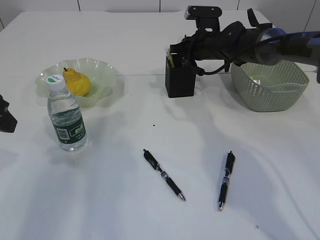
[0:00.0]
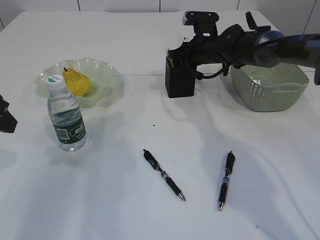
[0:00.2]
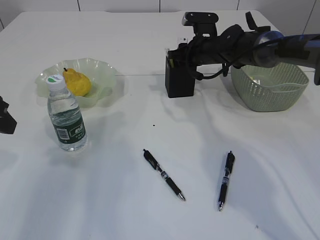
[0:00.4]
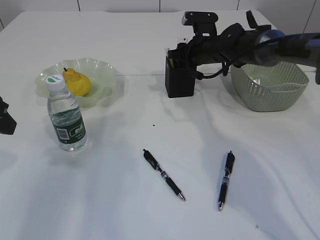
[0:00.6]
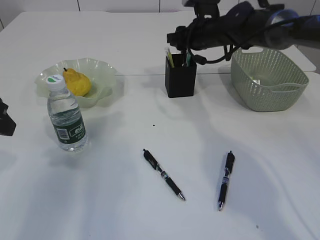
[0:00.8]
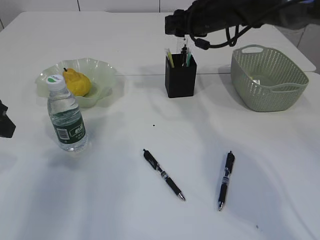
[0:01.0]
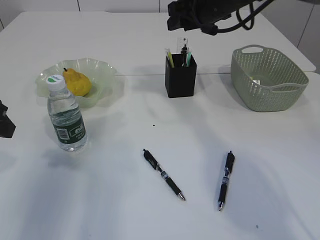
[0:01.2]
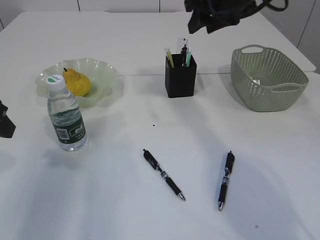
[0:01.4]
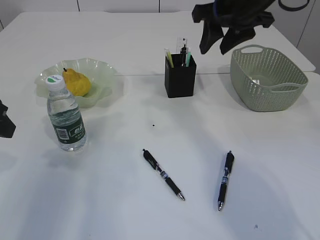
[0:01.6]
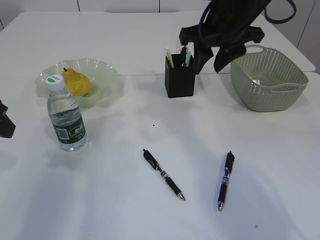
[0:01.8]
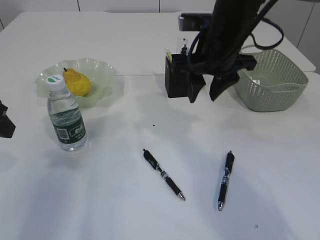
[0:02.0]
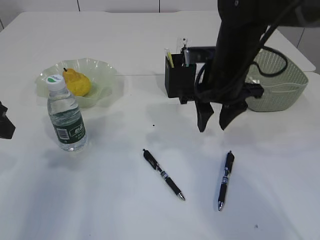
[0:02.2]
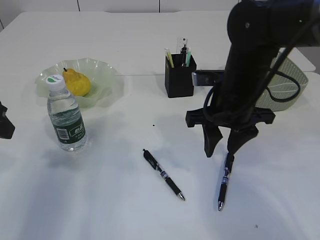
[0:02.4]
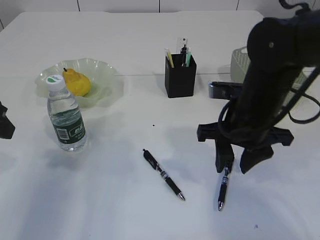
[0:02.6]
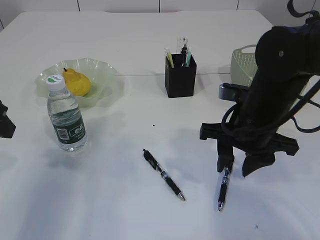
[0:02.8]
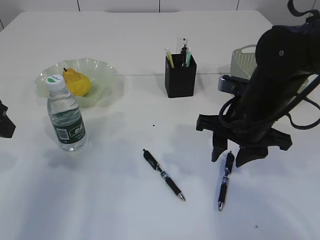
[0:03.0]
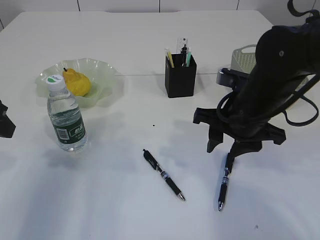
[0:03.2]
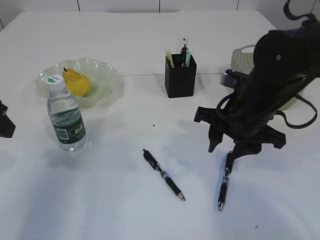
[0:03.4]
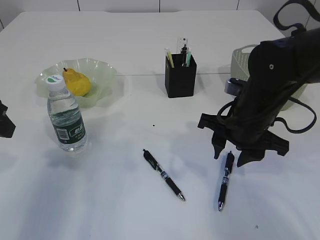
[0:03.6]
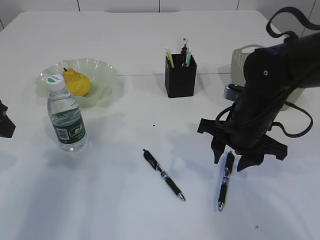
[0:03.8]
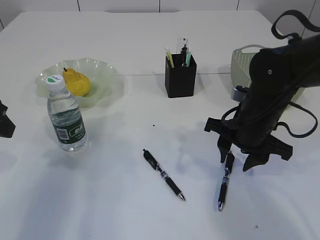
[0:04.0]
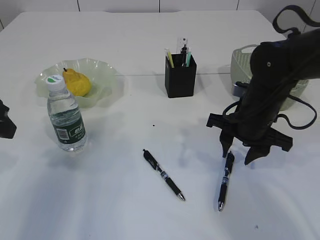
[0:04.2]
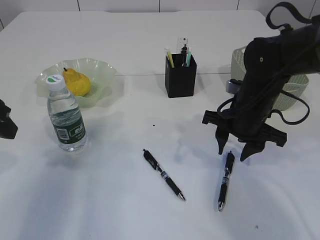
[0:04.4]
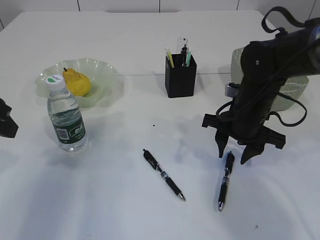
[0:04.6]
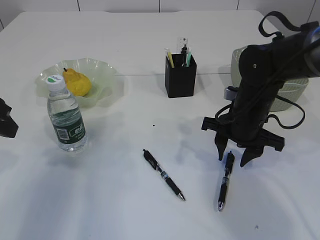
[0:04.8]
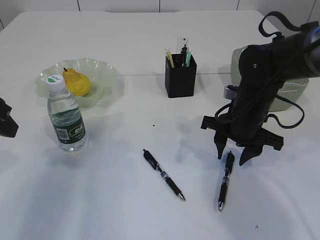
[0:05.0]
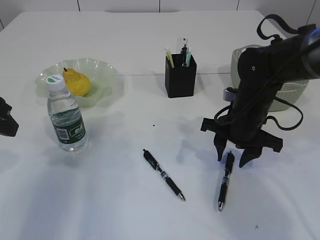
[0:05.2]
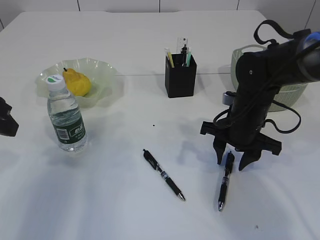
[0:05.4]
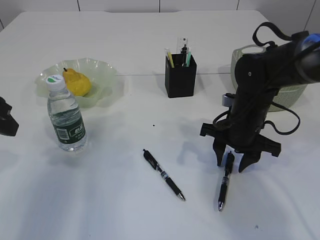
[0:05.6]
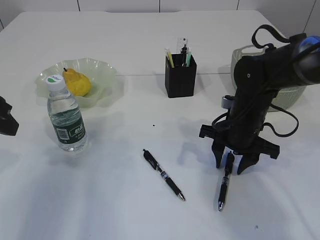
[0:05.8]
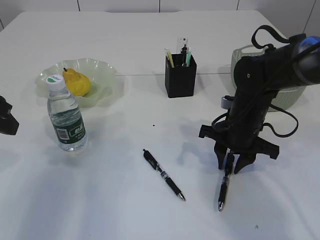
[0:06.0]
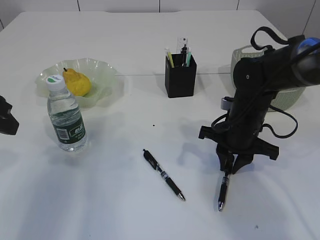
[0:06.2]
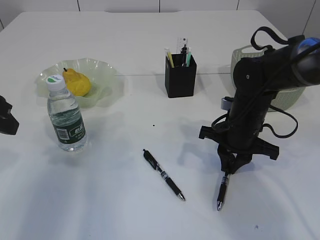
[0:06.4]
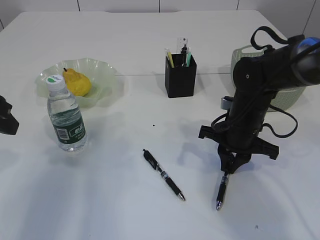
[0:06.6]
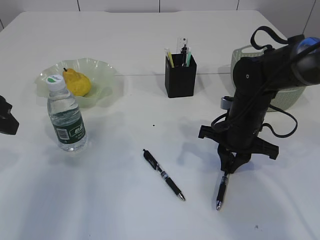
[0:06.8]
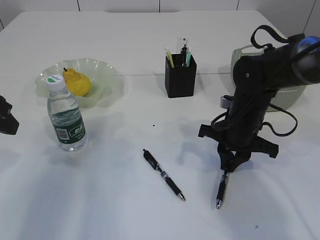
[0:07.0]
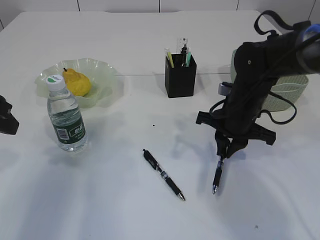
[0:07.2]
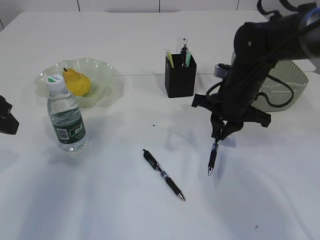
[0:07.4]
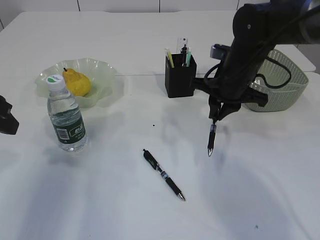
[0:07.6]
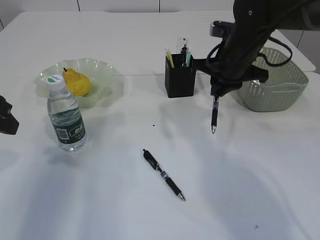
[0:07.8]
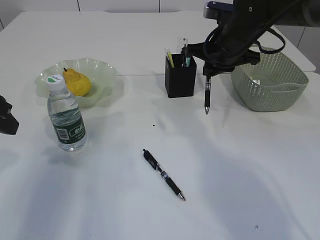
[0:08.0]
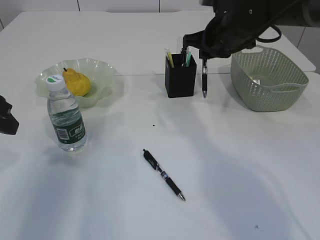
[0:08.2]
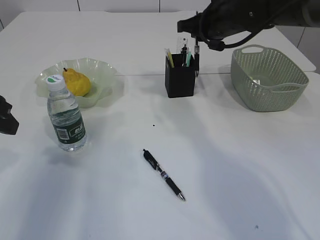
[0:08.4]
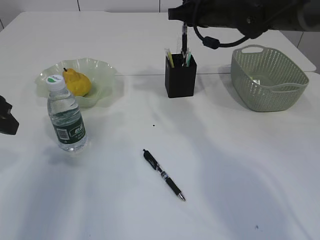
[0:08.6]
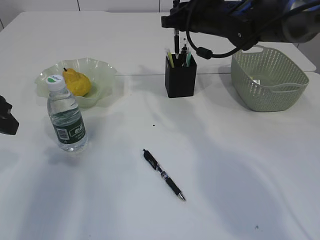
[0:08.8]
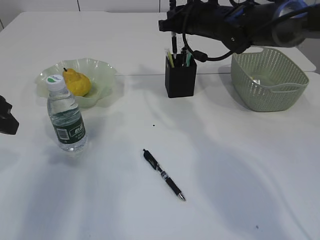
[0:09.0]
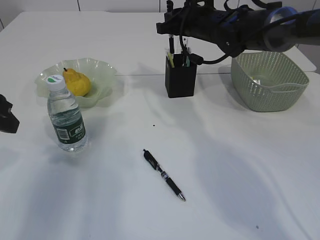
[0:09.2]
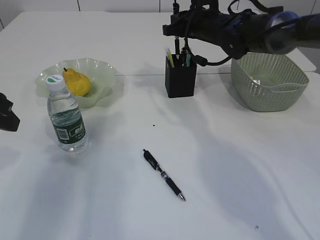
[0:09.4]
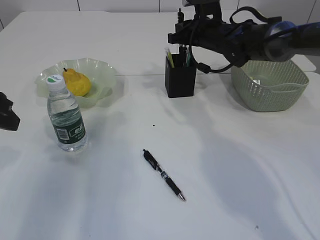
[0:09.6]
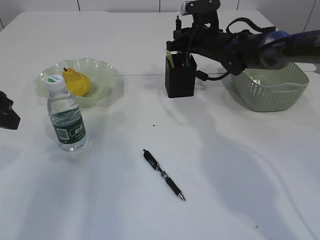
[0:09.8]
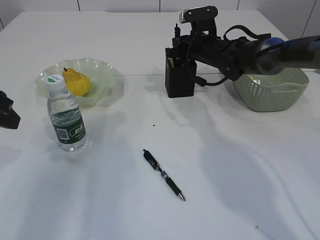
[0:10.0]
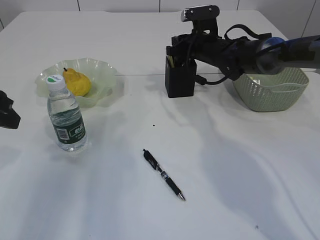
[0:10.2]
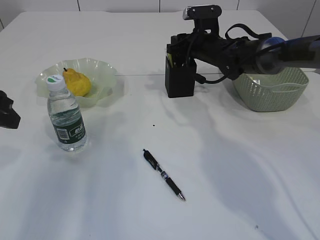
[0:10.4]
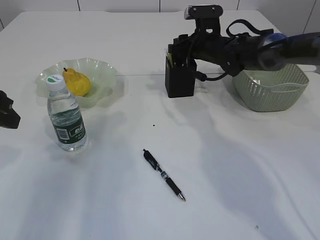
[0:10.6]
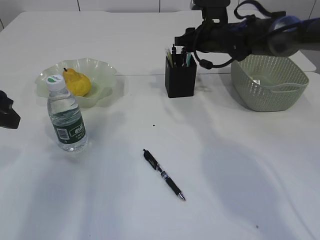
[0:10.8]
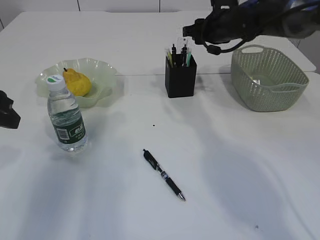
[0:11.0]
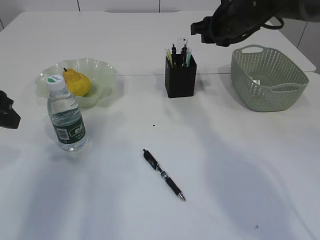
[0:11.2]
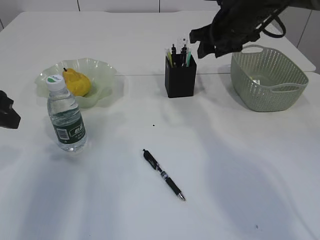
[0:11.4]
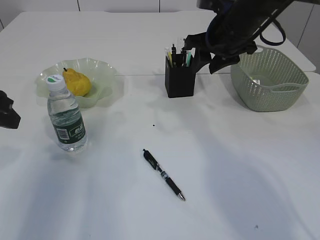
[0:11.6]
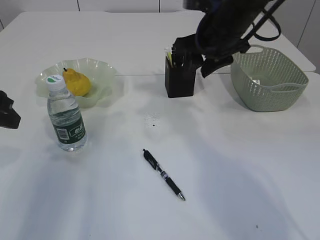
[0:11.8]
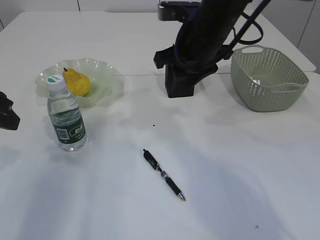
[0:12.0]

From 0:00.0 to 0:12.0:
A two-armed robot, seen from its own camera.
Step, from 0:01.2 to 0:07.2: Pick up the pen with right arm.
Step, from 0:07.4 to 0:10.8: Place the pen into the pen holder.
From 0:00.0 to 0:01.6: The right gripper goes roughly 20 cm upward and backward, and opens.
From 0:01.6 to 0:03.0: The right gripper is displaced downward and backward by some 15 cm.
From 0:03.0 to 0:04.4: The right gripper ends up roughly 5 cm from where it was.
From 0:04.4 to 0:06.0: There are only small adjustments of the grippers.
From 0:06.0 to 0:07.6: The right gripper travels upward by approximately 10 cm.
From 0:07.6 to 0:09.0: The right gripper moves forward and upward, some 10 cm.
From 0:09.0 to 0:10.4: The right gripper heads downward, covering about 5 cm, and opens.
From 0:10.4 to 0:12.0: The right gripper shifts approximately 15 cm backward and upward.

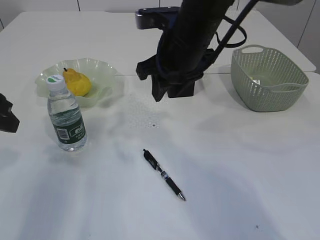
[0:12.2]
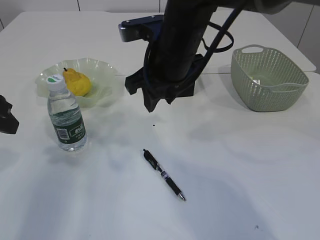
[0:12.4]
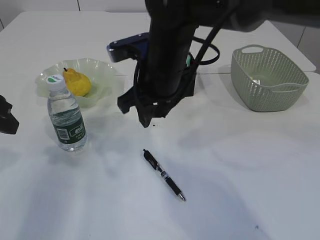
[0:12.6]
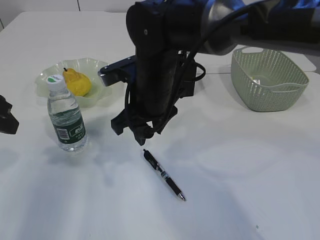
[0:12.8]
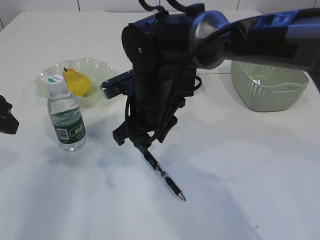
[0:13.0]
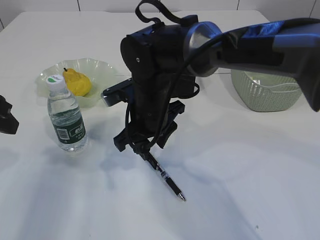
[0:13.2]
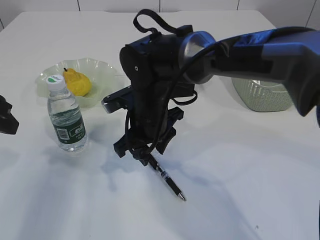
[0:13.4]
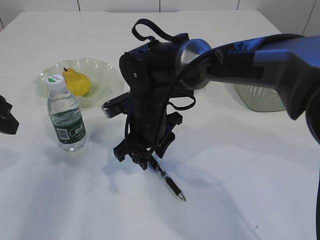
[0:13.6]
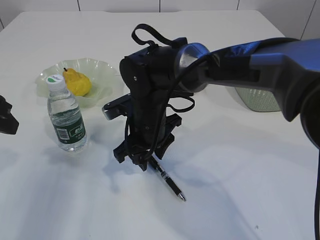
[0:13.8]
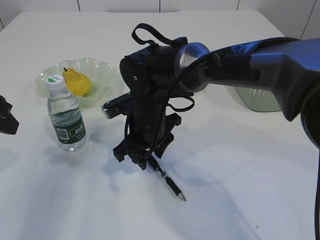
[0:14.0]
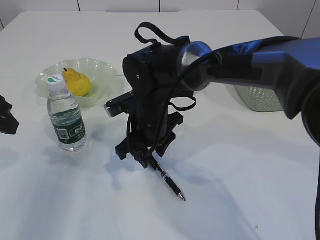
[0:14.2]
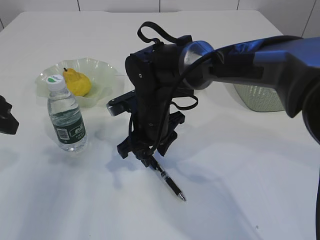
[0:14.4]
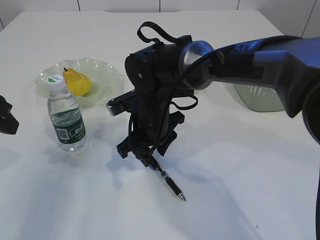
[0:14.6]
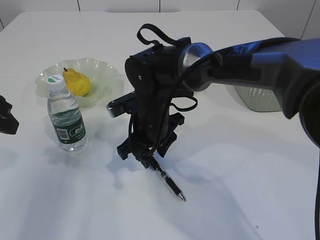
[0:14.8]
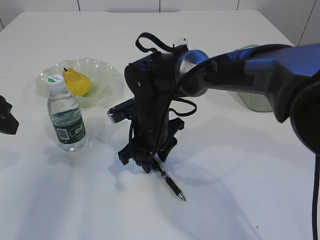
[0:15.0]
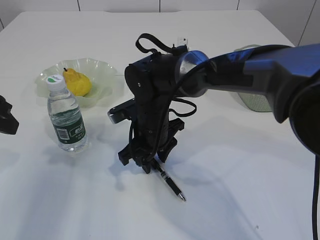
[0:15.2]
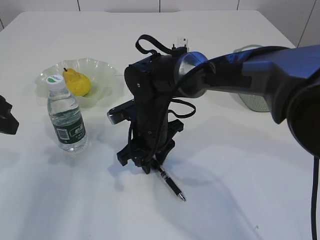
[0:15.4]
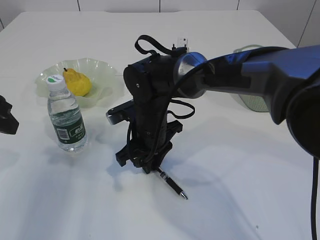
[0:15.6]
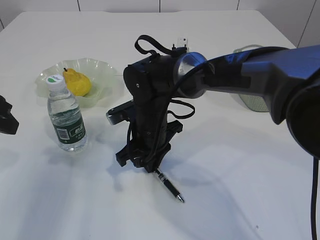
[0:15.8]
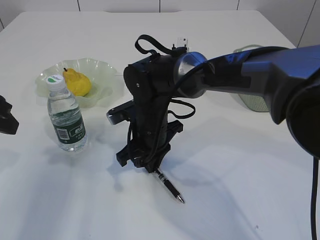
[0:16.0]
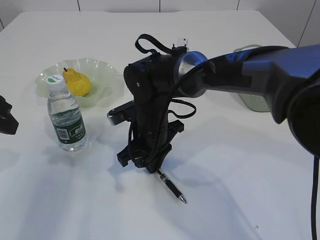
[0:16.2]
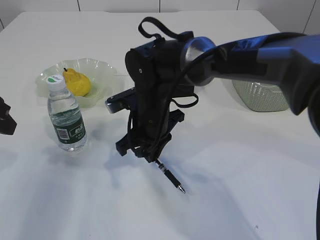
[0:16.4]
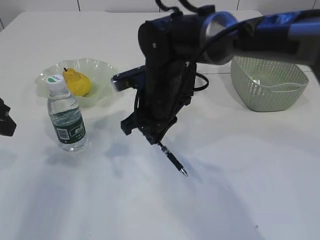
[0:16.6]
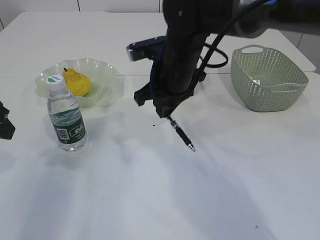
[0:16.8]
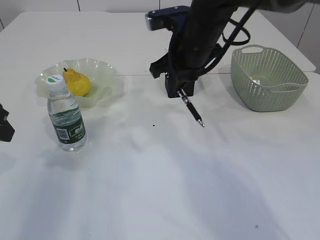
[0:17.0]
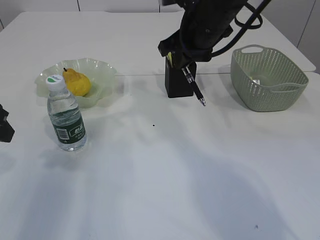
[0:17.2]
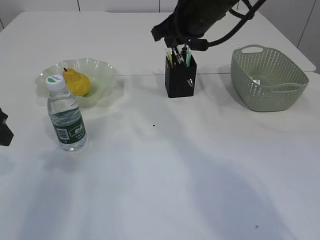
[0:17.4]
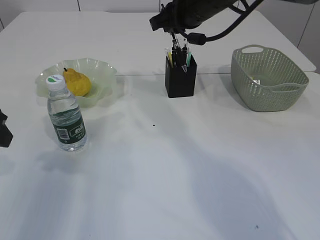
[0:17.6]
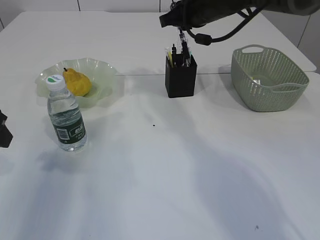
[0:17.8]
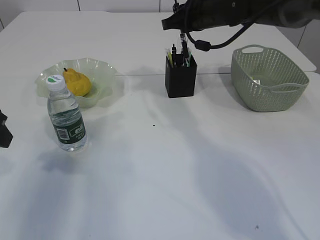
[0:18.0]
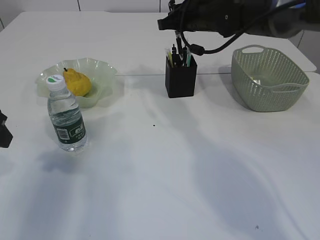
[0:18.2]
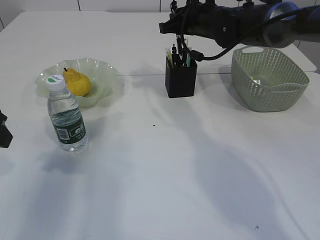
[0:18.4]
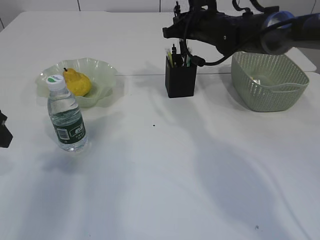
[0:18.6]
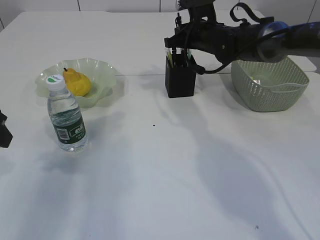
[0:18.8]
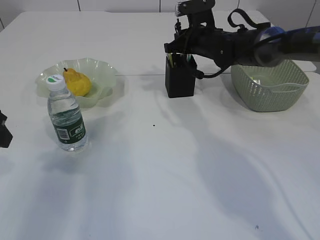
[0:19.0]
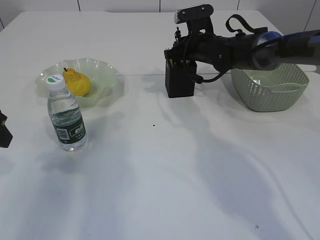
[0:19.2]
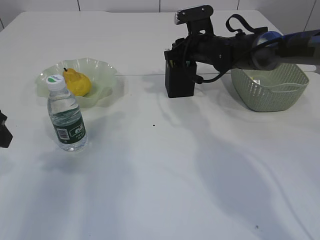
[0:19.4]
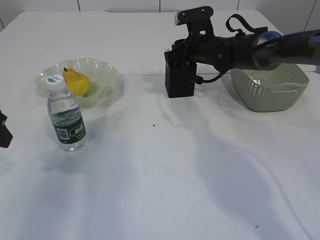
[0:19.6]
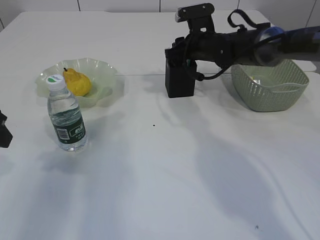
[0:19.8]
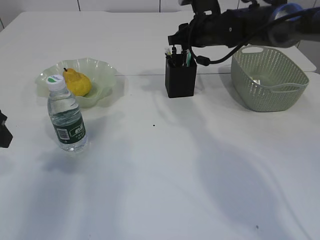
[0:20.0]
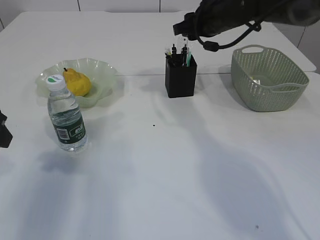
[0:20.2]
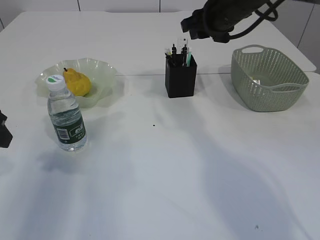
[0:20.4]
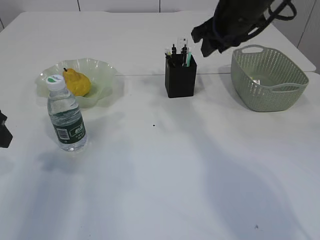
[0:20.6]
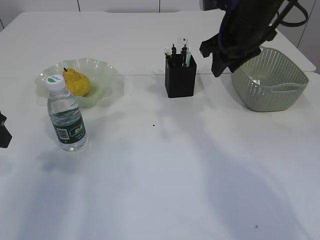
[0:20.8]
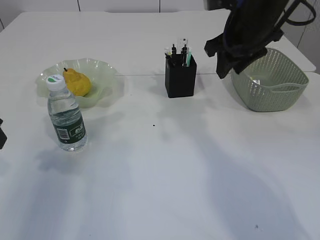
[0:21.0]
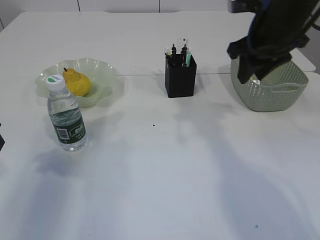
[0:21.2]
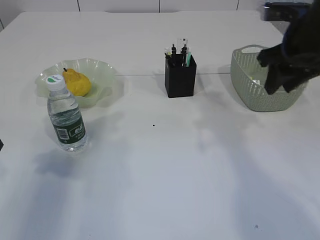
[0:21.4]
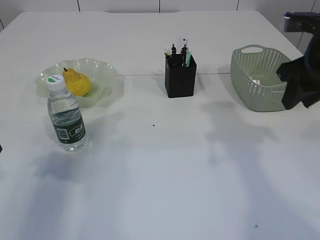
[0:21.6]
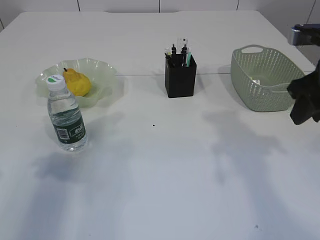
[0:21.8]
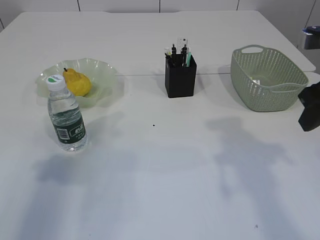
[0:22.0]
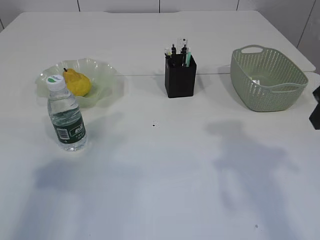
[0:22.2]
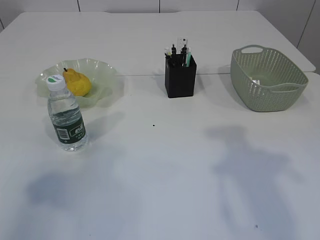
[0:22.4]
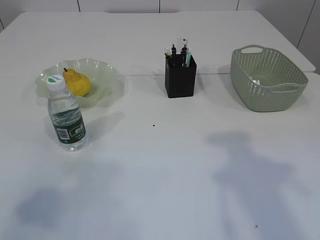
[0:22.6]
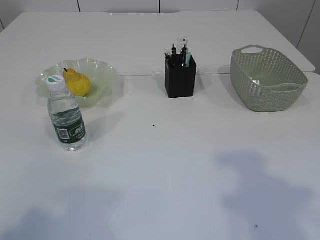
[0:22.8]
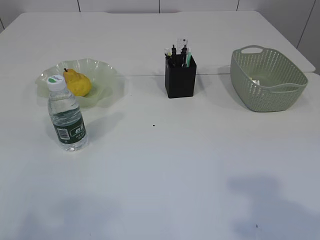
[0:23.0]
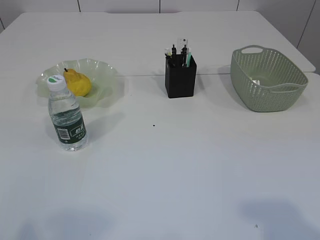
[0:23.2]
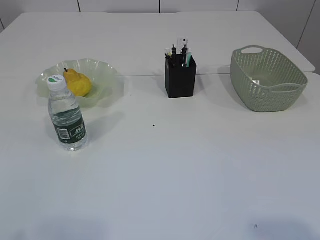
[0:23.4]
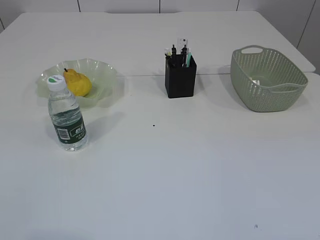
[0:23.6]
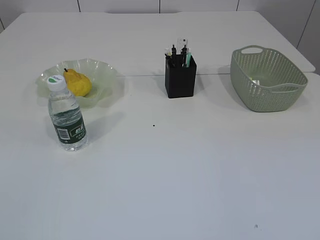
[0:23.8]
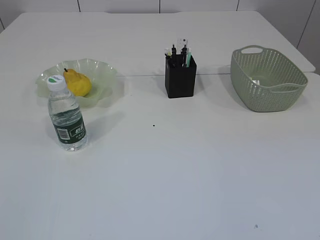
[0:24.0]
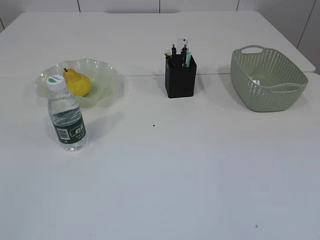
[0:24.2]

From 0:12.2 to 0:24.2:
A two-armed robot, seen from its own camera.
Step, from 0:12.2 to 0:16.4: Pick up the pen with right arm.
Step, from 0:16.6 to 0:20.2: Place the pen into the pen holder.
From 0:12.2 to 0:13.8: The right gripper is displaced downward and to the left by roughly 15 cm.
From 0:13.8 to 0:15.2: The grippers make only small movements.
From 0:15.2 to 0:16.6: The right gripper goes some 5 cm upward, and closes up.
From 0:16.6 to 0:18.2: The right gripper moves forward, to the right and upward, roughly 15 cm.
From 0:18.2 to 0:19.8: The right gripper is displaced downward by approximately 5 cm, and opens.
From 0:19.8 to 0:21.2: The right gripper moves backward, upward and to the right, approximately 20 cm.
From 0:21.2 to 0:22.6: The left gripper is displaced backward and upward by approximately 20 cm. The right gripper goes roughly 20 cm backward.
From 0:22.6 to 0:24.2: The left gripper goes roughly 15 cm backward and downward.
